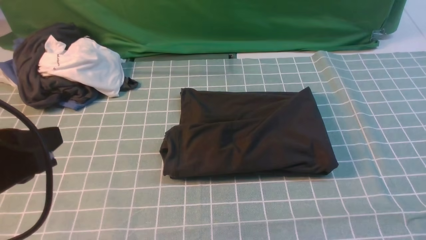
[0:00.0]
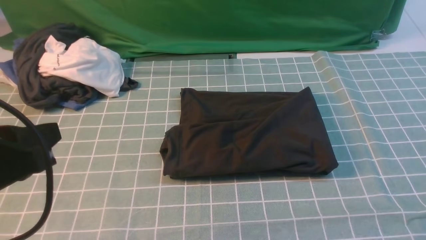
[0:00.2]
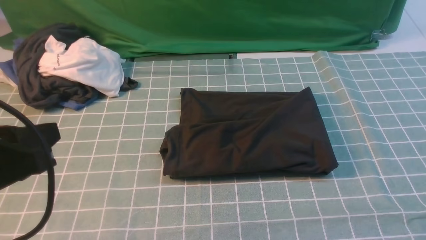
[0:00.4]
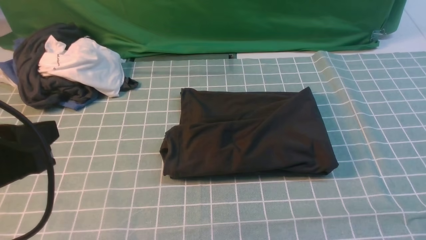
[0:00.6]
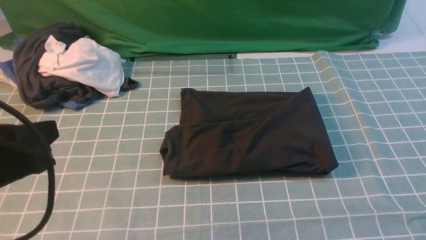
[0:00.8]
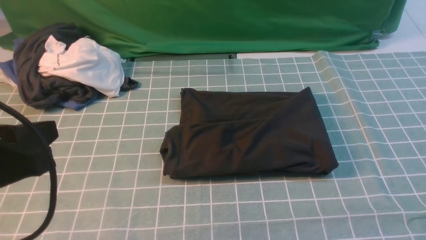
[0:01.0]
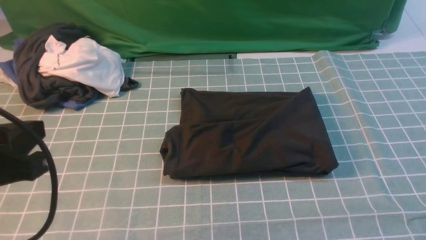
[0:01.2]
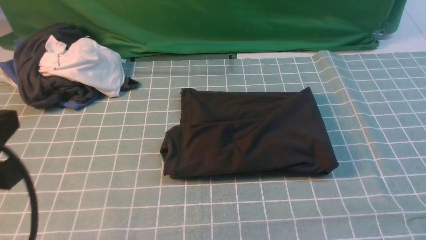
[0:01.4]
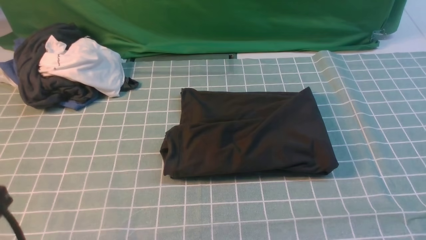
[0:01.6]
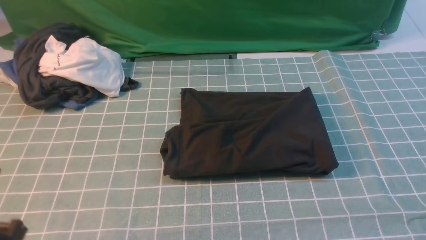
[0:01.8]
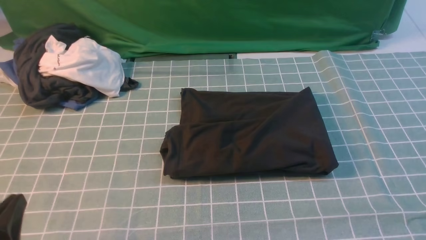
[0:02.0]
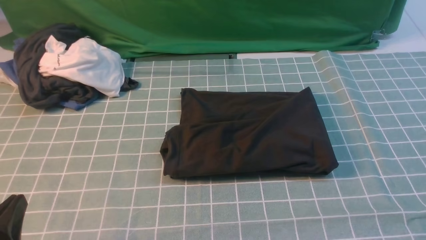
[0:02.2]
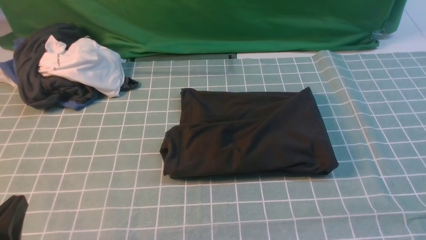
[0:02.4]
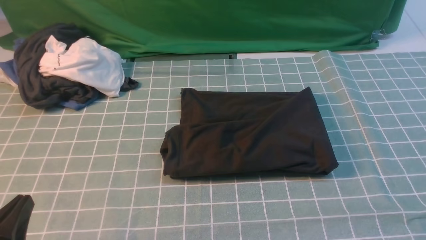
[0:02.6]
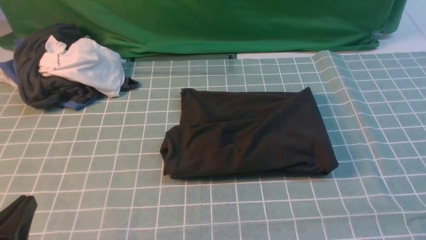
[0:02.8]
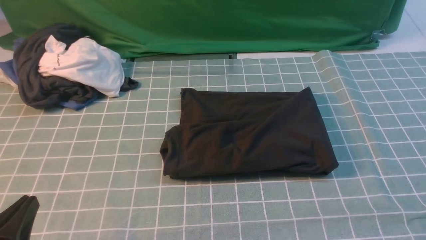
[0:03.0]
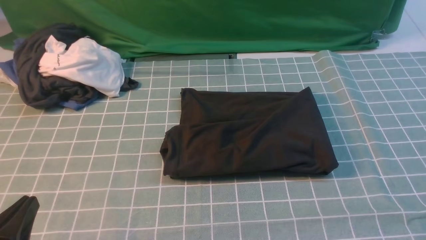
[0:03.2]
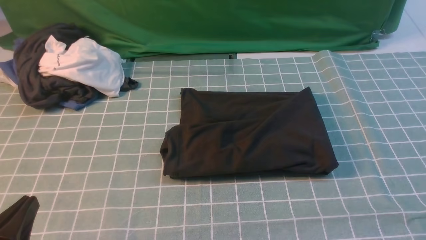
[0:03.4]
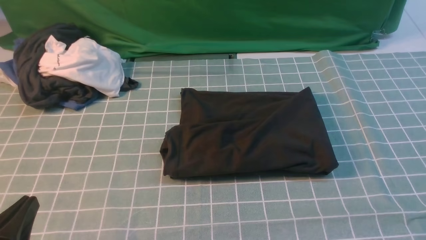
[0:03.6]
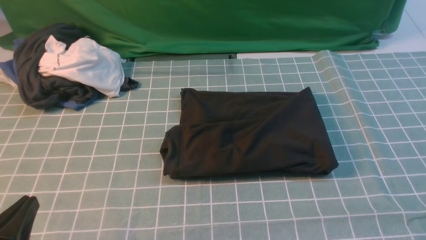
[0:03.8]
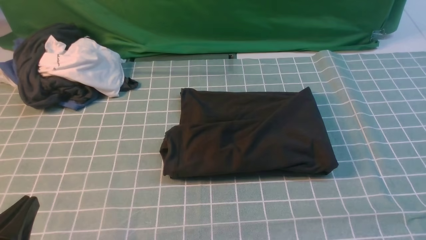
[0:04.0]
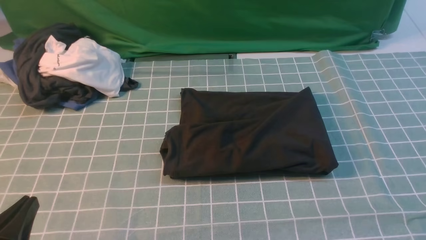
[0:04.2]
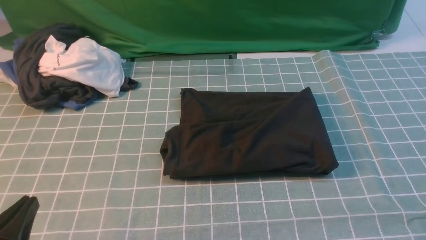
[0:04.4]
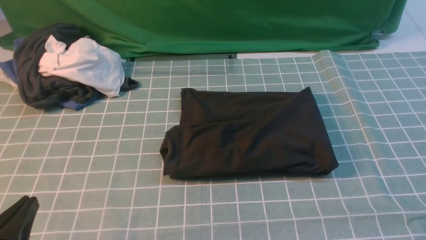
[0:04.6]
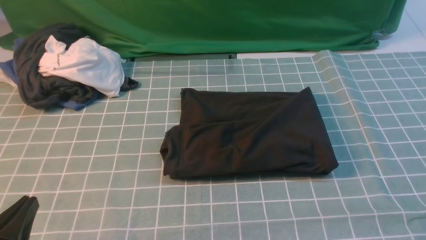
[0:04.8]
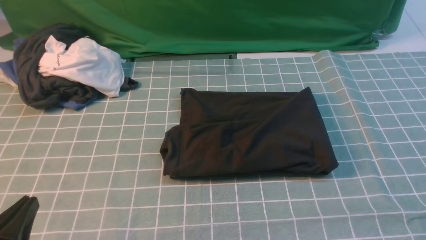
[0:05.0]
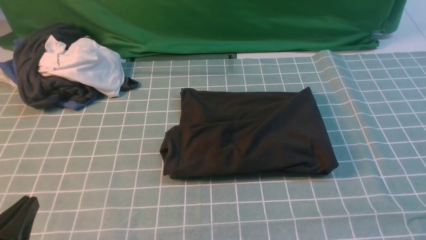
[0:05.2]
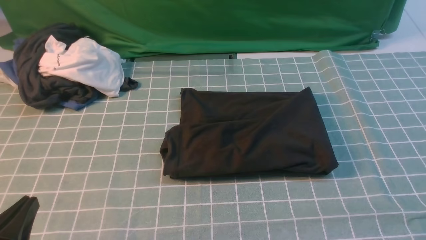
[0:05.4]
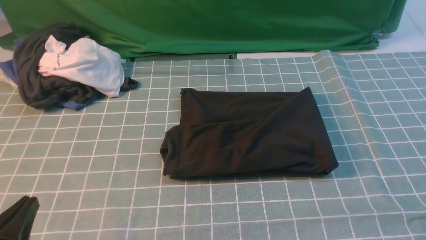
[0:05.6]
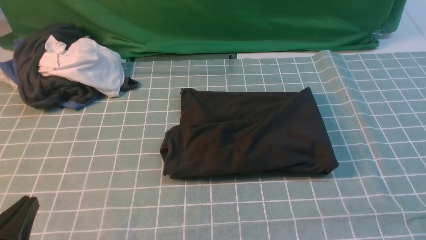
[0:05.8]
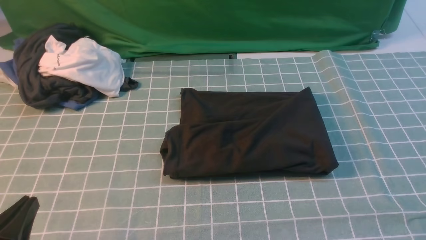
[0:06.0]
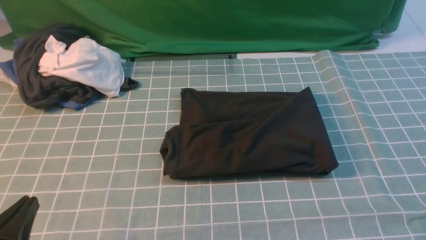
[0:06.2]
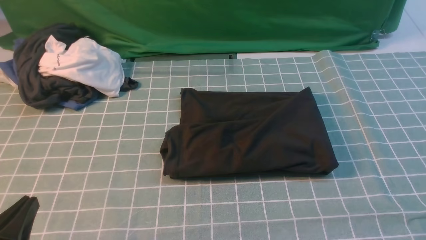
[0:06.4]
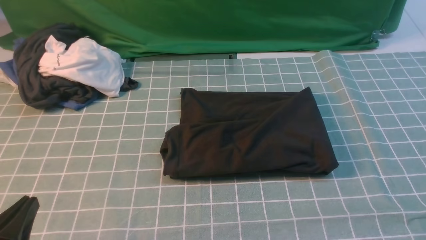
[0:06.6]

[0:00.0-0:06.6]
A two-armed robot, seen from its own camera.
0:00.0 to 0:01.6: The left gripper moves roughly 5 cm.
0:01.6 to 0:03.2: The left gripper travels downward by about 10 cm.
0:05.0 to 0:06.6: The two grippers keep their place.

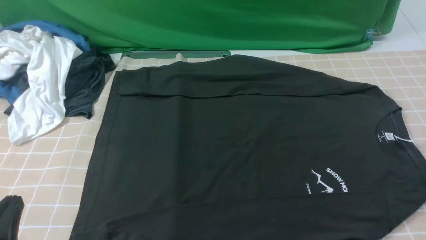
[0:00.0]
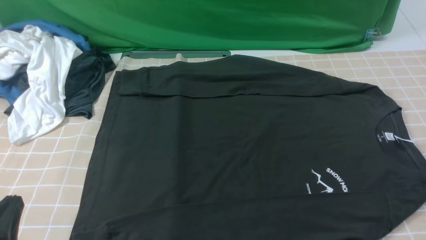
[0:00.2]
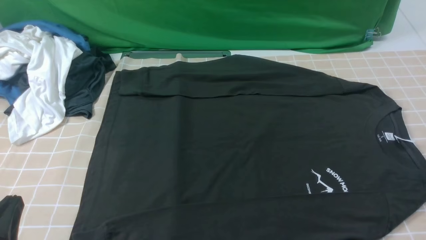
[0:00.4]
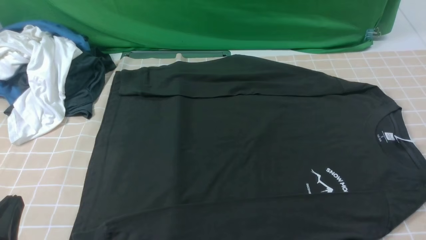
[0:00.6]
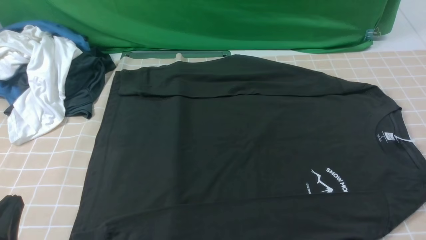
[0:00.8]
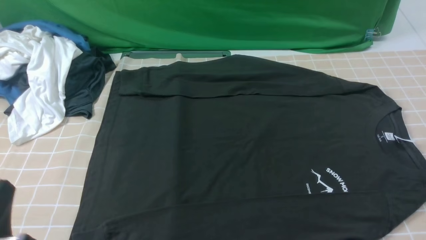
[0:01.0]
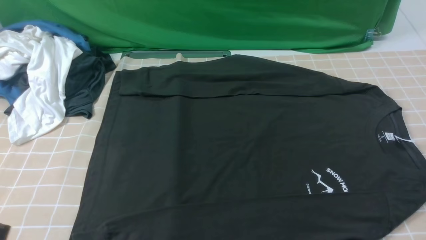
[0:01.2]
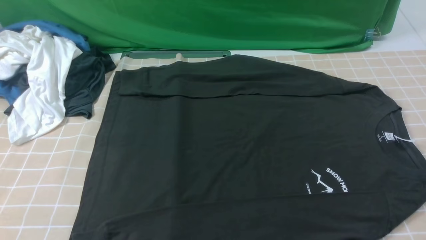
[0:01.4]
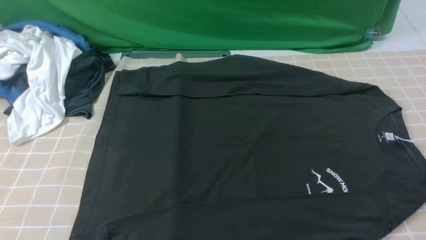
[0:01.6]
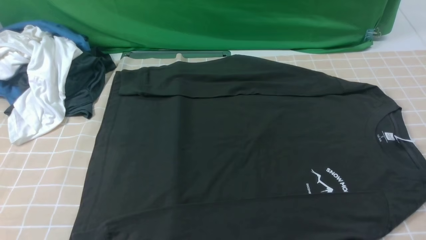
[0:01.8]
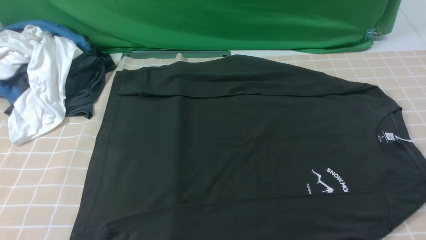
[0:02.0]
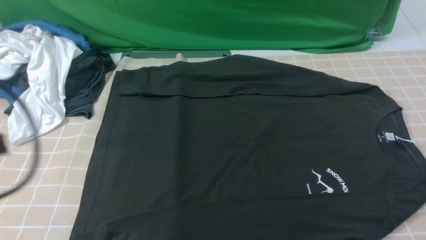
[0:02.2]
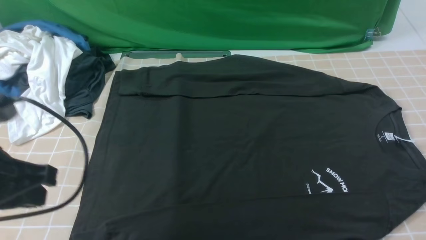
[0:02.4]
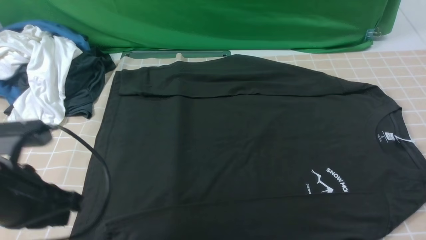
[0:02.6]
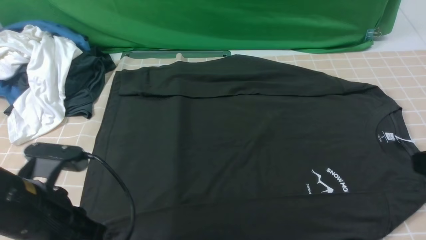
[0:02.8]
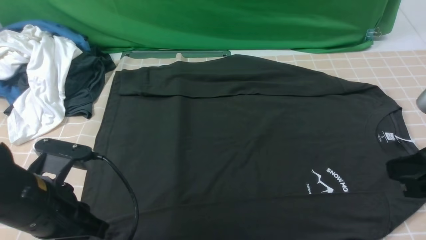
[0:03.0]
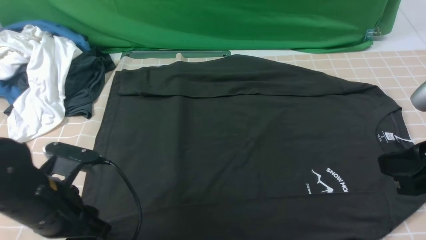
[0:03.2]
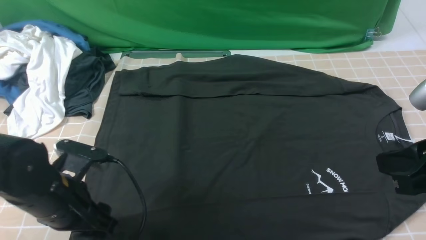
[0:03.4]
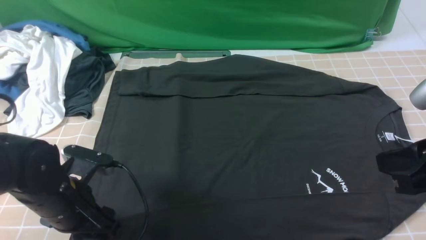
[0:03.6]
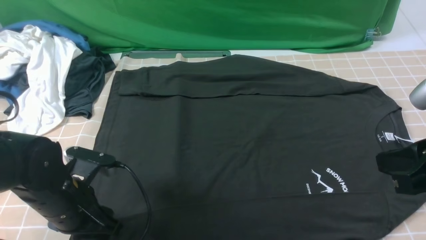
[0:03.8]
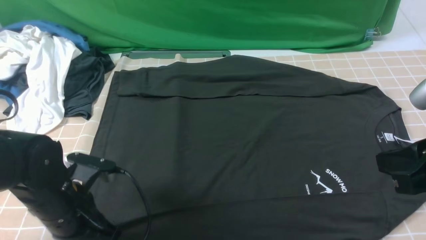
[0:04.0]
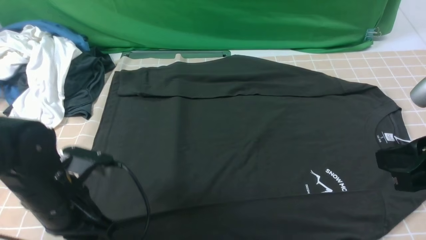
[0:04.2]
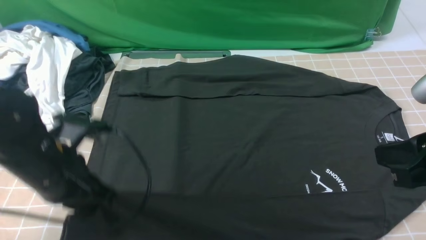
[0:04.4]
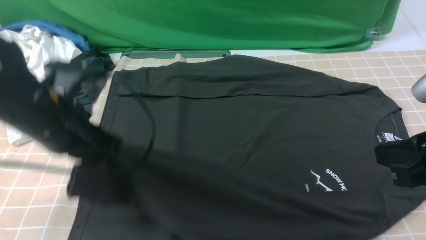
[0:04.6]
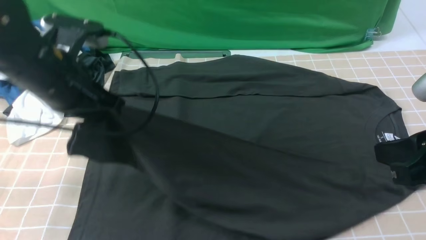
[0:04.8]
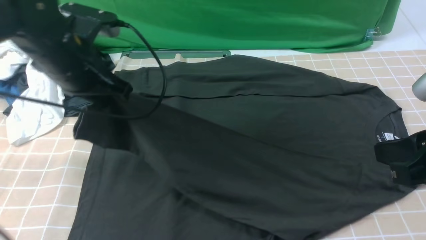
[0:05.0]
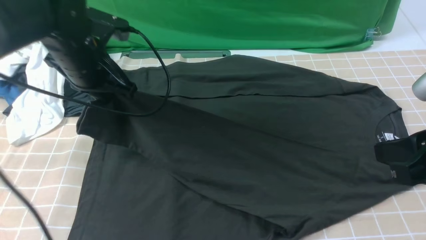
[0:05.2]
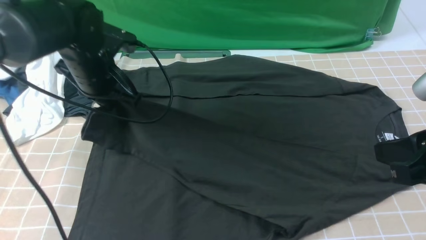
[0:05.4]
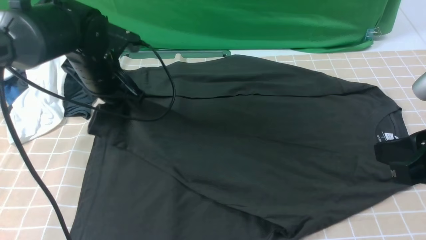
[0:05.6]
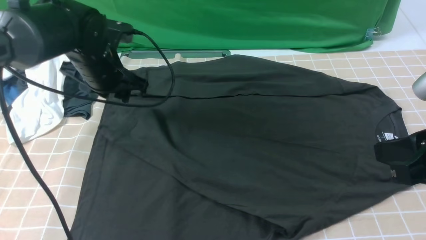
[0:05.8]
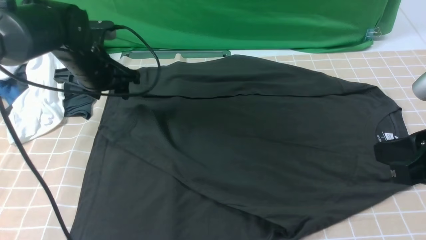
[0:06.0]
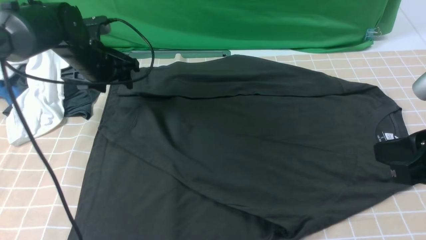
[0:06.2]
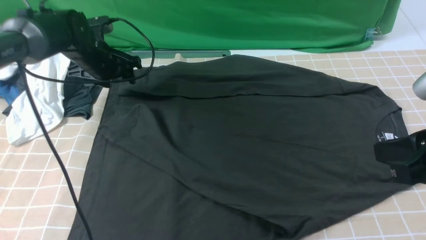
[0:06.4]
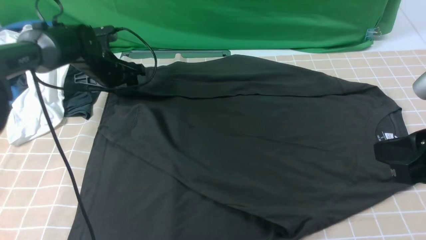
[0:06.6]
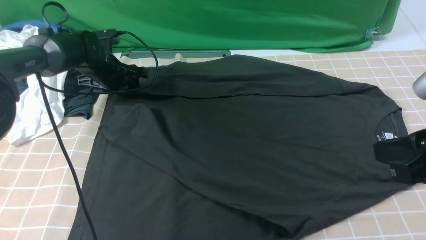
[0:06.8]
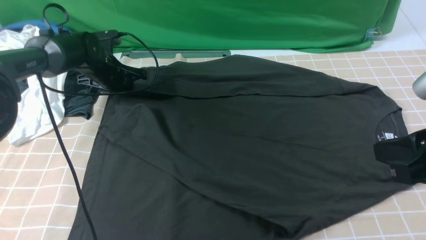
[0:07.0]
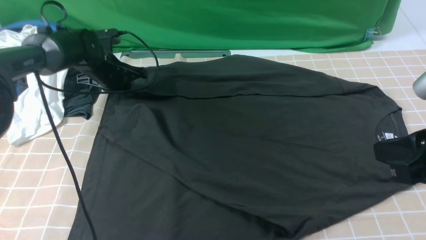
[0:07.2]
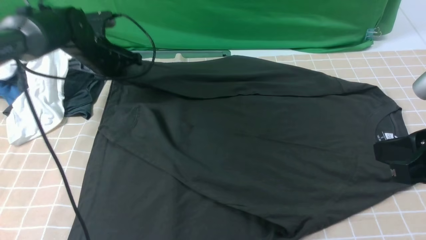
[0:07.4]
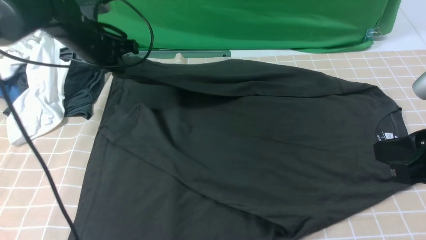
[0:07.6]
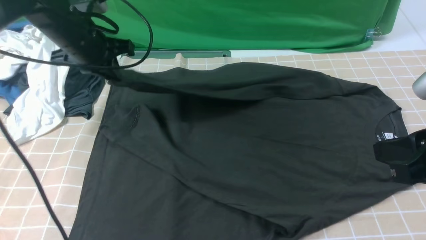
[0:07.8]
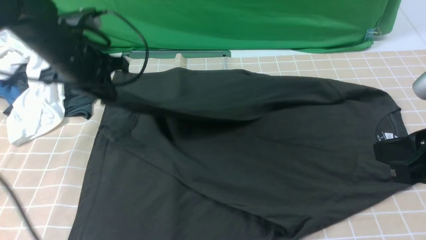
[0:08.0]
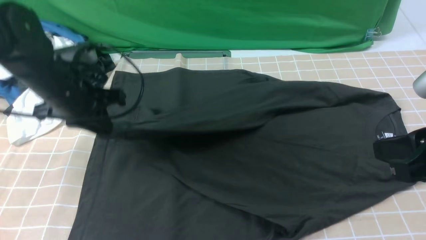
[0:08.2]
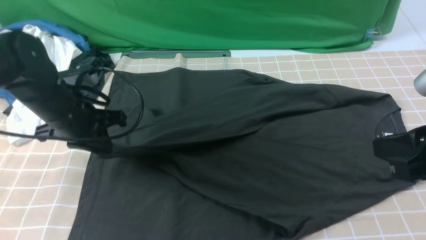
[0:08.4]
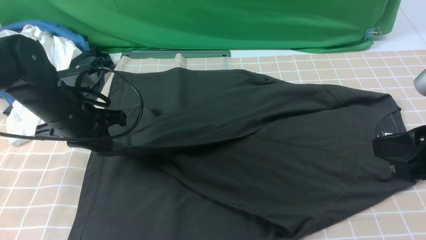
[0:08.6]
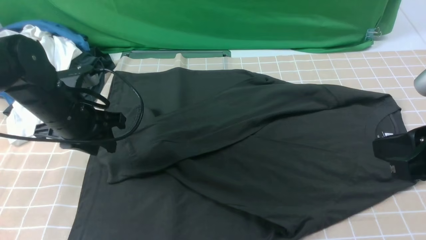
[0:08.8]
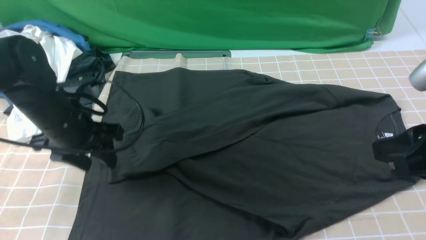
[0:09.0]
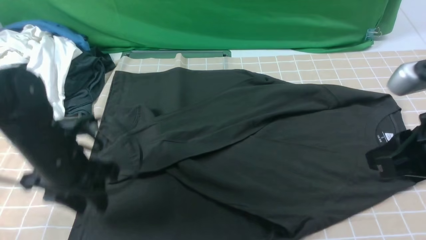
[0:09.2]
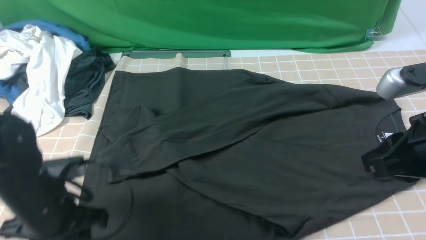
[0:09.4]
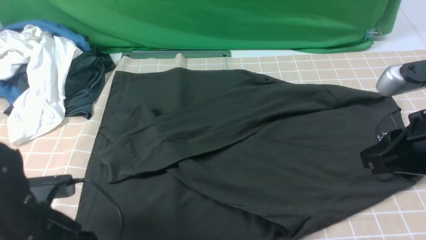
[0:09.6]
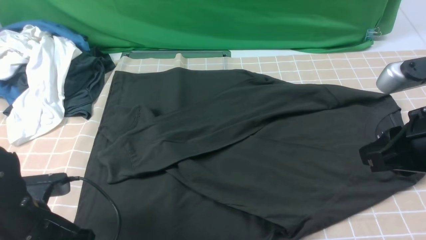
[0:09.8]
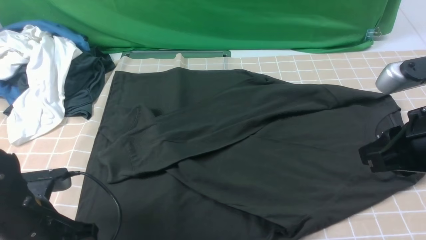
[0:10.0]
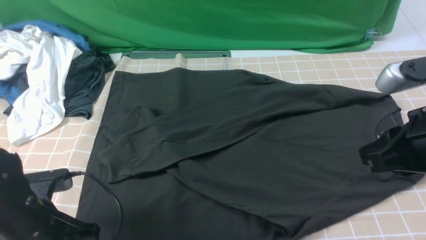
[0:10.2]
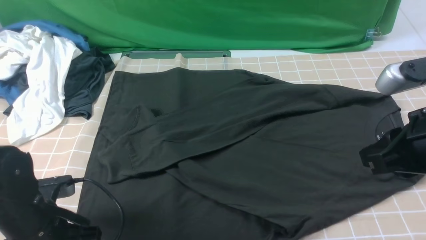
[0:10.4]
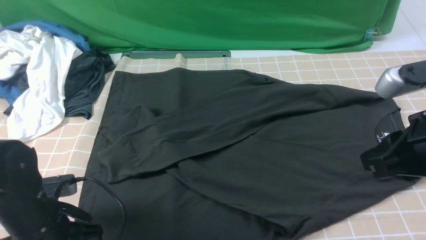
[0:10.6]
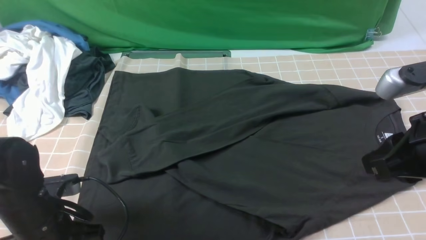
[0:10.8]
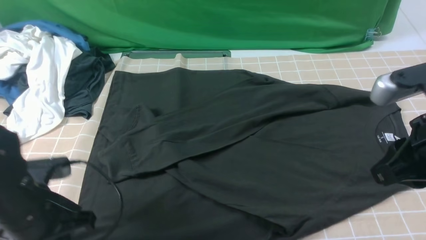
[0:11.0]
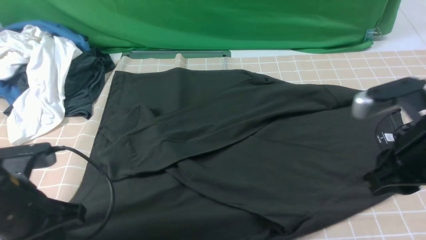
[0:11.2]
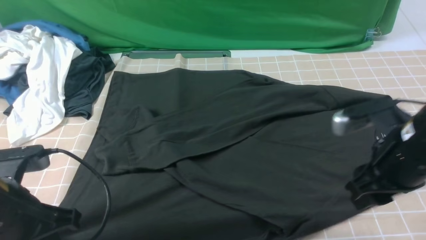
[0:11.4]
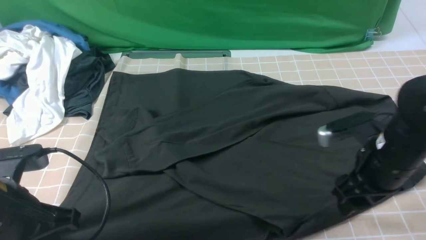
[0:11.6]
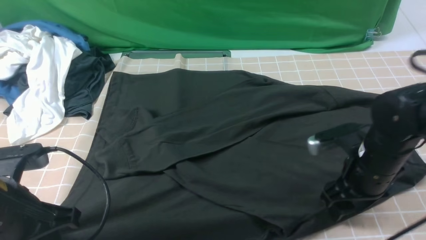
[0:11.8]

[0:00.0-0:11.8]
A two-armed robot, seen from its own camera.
Step, 0:00.0 to 0:04.2: use the left arm to clamp the cuff closest to it.
Step, 0:04.4 to 0:05.8: use the left arm to drag and place the cuff at the centered position on the left edge of the fabric.
Step, 0:06.0 to 0:07.2: use the left arm to clamp the cuff farthest from it.
Step, 0:07.6 to 0:08.8: use the left arm to drag and drop the cuff onto the cuff closest to the left arm.
0:00.0 to 0:01.4: The left gripper changes place by some 5 cm.
0:01.4 to 0:03.0: The left gripper goes roughly 15 cm forward and to the right, and reaches approximately 15 cm upward, then returns, while the right gripper is displaced upward, forward and to the left by roughly 15 cm, and closes its fingers.
0:03.0 to 0:04.4: The left gripper goes roughly 5 cm forward, and opens, then closes once more.
0:04.4 to 0:06.0: The left gripper moves forward, approximately 20 cm, and opens up.
0:06.0 to 0:07.4: The left gripper closes its fingers.
0:07.4 to 0:08.8: The left gripper moves backward, about 15 cm, and opens up.
0:08.8 to 0:10.4: The left gripper goes roughly 15 cm backward and downward.
0:10.4 to 0:11.8: The right gripper goes approximately 15 cm downward and forward, and opens, while the left gripper heads upward, covering some 10 cm, and closes.
